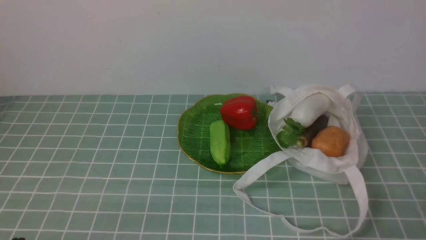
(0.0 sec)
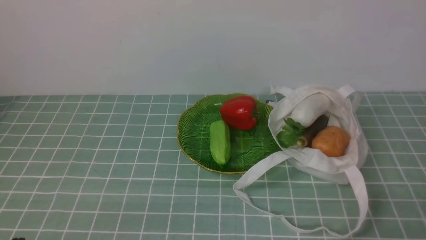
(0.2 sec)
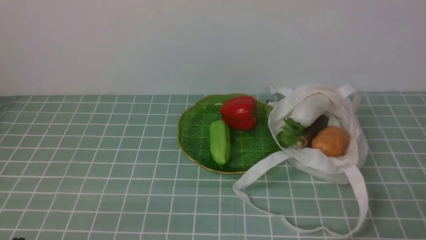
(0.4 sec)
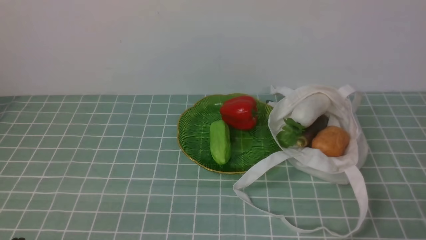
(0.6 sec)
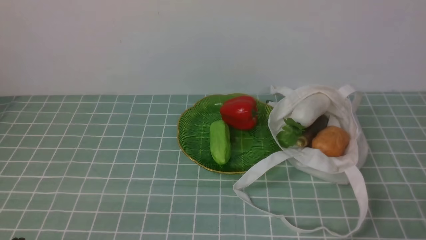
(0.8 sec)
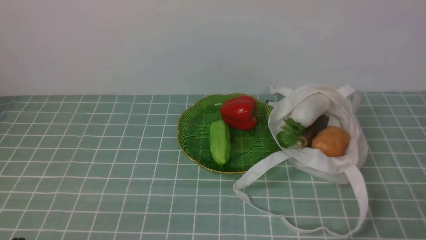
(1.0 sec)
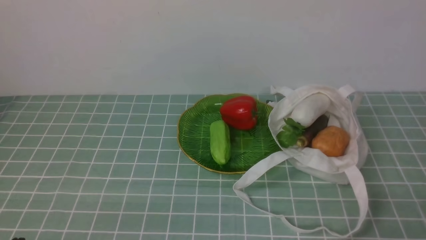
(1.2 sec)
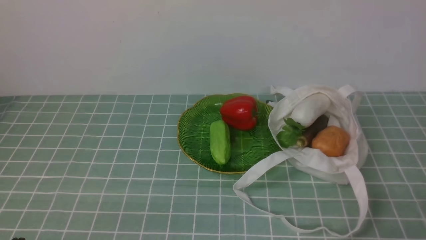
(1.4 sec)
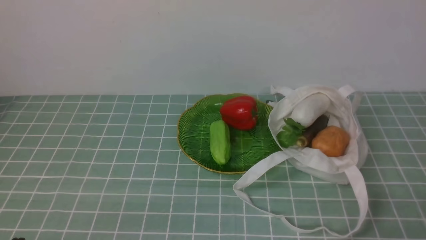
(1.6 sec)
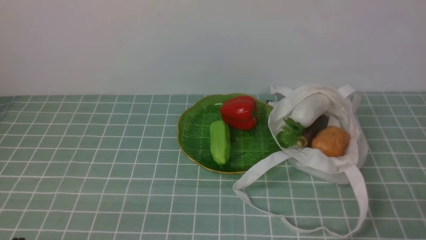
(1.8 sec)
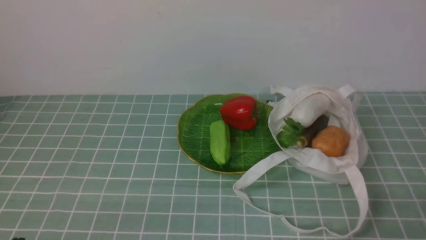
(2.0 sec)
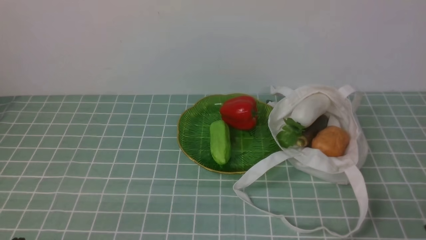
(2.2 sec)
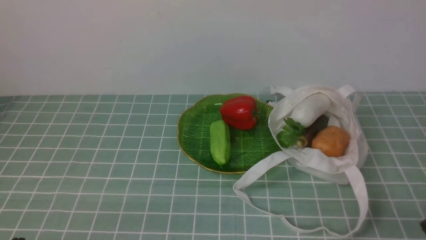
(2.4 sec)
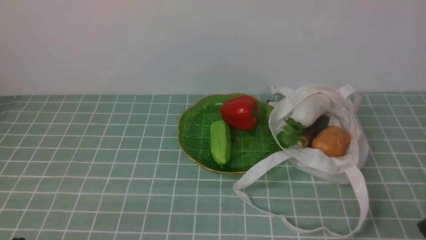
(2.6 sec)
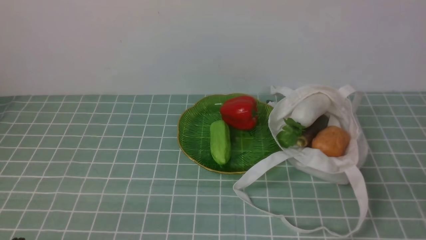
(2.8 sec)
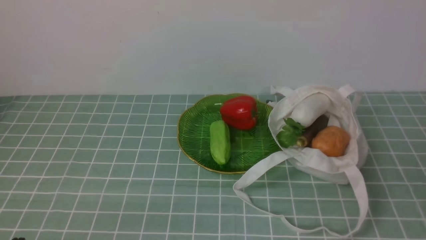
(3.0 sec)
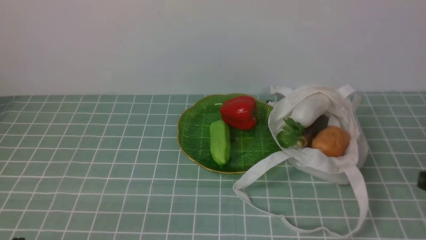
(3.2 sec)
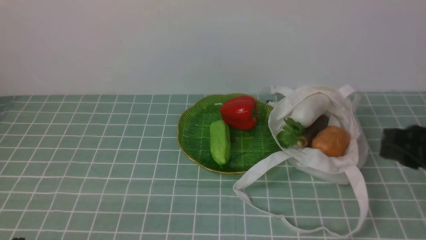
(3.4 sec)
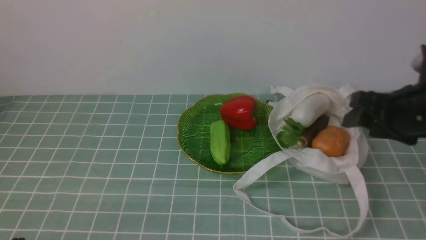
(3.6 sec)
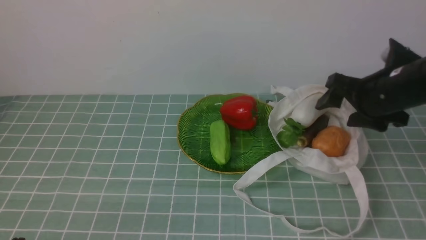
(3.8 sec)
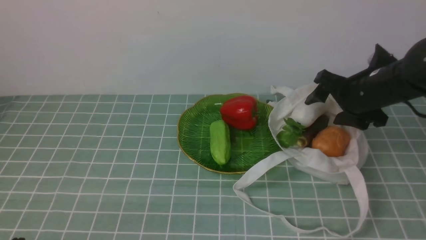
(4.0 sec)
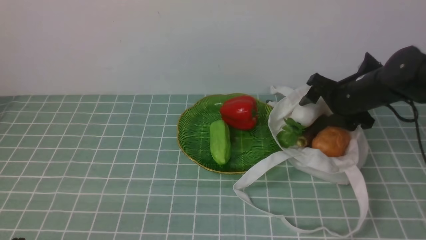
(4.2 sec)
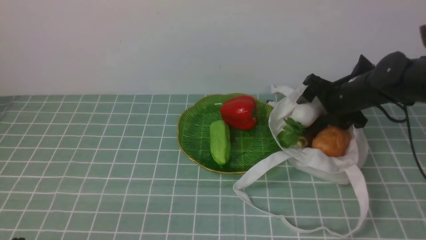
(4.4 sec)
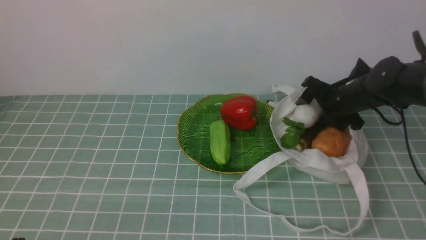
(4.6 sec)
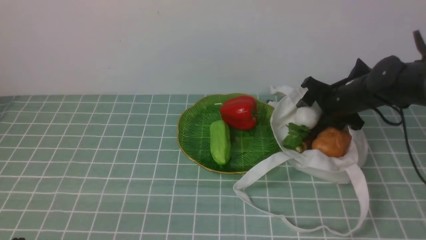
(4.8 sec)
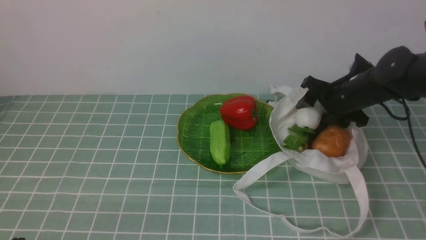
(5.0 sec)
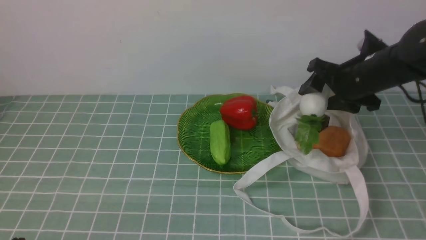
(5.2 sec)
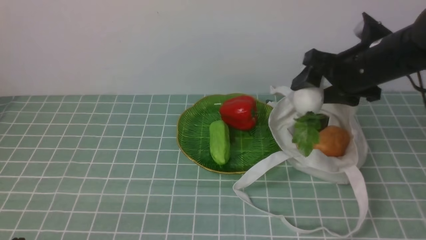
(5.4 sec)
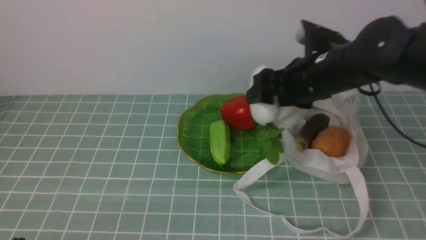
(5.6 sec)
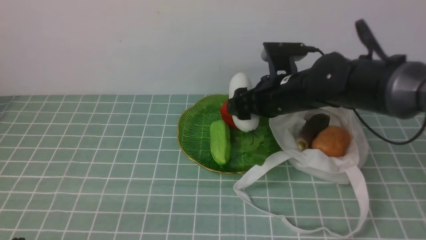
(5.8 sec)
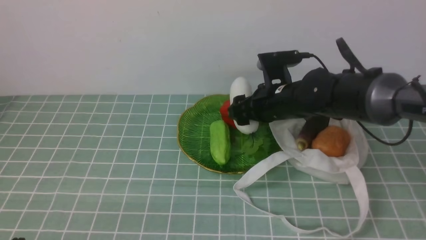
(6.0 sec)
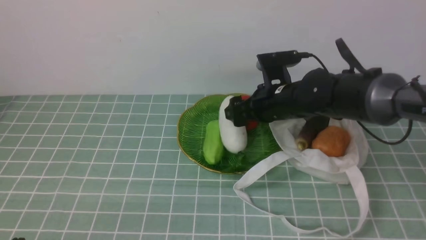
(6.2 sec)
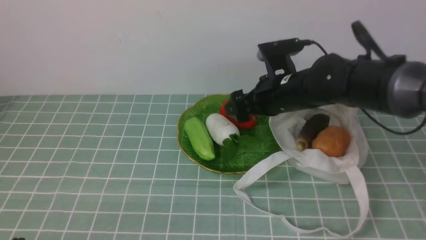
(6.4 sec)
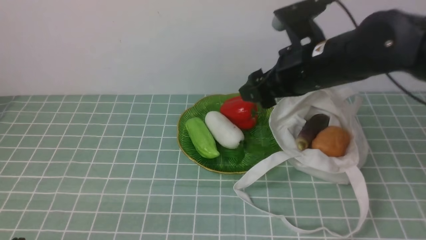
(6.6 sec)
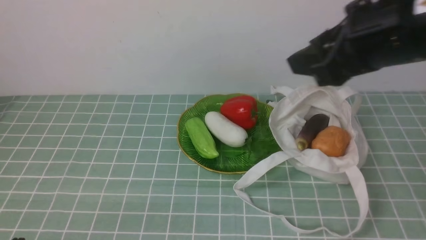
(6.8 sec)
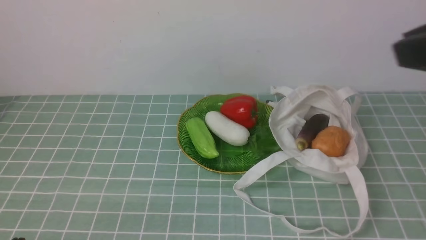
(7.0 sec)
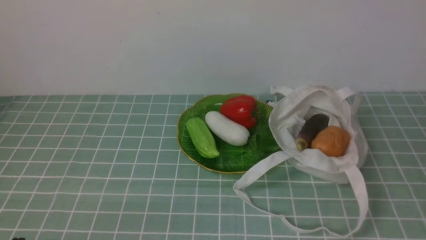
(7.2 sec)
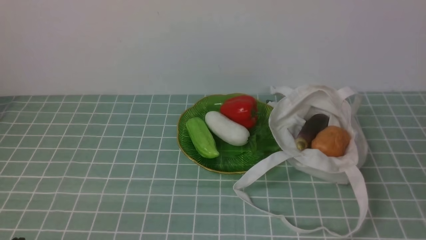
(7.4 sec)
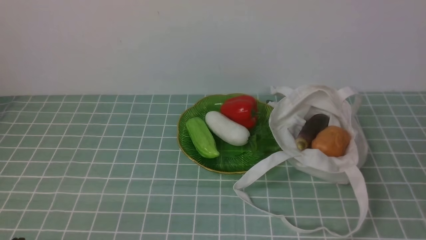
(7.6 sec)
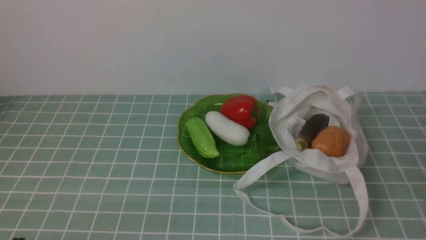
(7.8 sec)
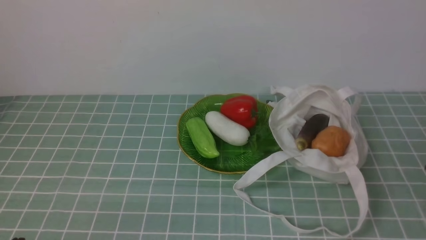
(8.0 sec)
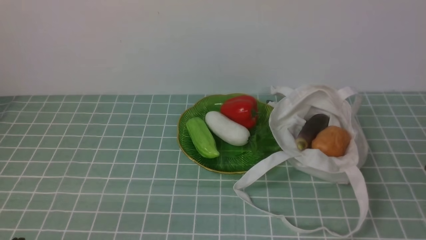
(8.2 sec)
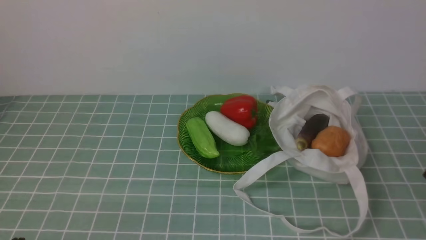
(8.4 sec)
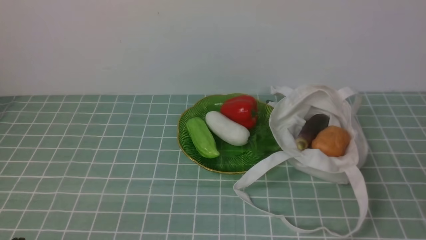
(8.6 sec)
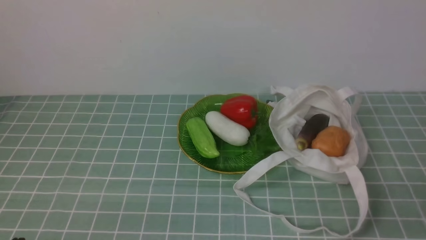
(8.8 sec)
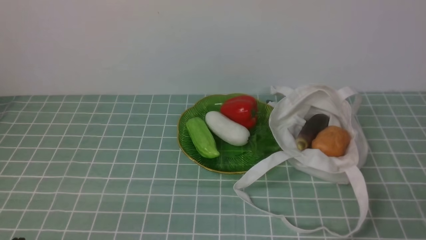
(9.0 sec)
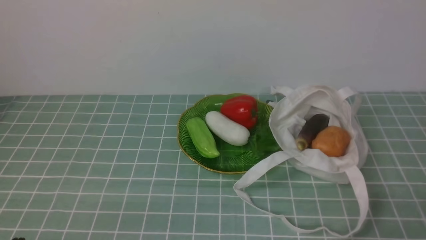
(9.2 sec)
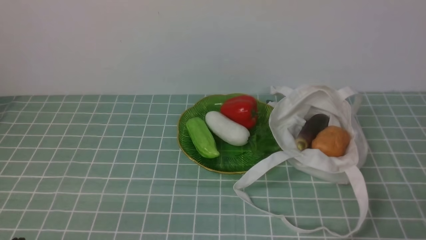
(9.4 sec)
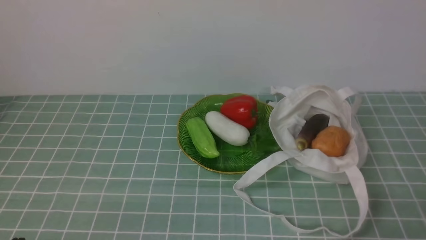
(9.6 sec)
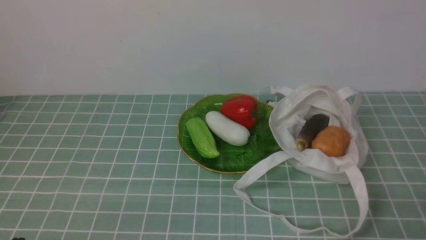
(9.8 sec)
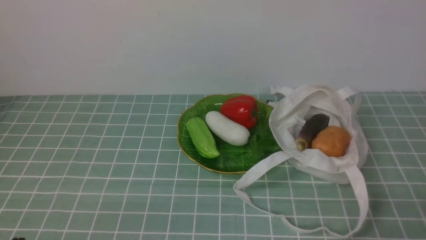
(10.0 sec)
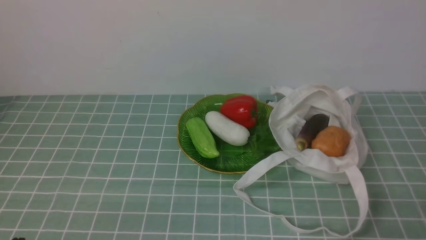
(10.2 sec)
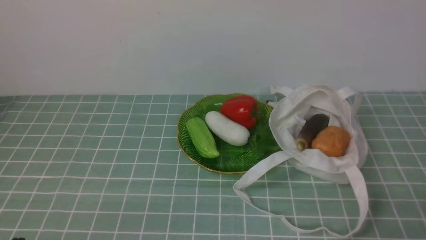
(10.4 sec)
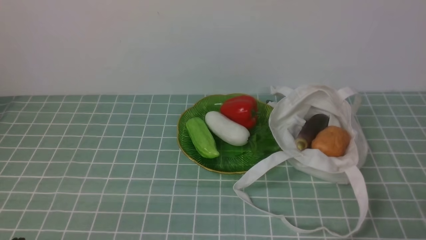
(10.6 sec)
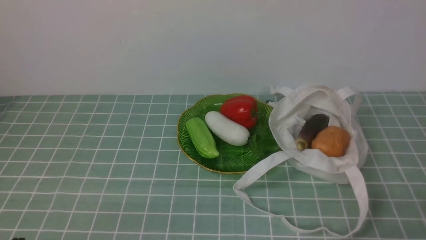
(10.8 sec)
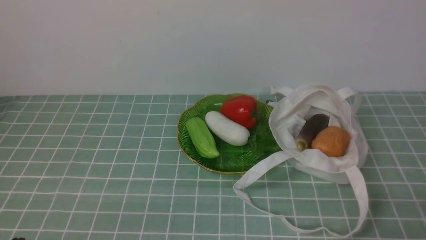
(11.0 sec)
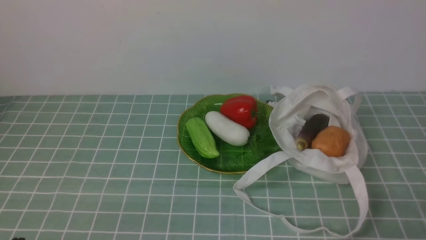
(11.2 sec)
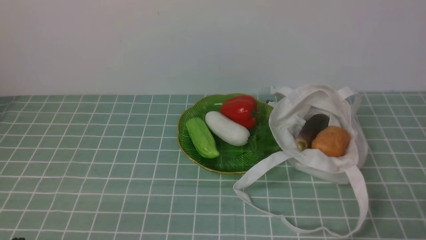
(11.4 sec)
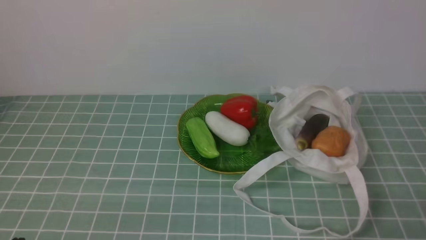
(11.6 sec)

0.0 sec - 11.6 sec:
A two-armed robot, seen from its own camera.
Task of the whole recording: take vegetables from cloth bag on blue coffee tablecloth place on plate.
Step, 0.0 sec - 4.8 sec: Grasp the radish with right gripper.
Step, 5.0 sec - 6.4 sec: Place the radish on the plate with right gripper.
0.0 sec - 1.4 sec: Both grippers stay put.
2.8 sec - 4.4 sec: The right gripper travels forward by approximately 35 cm, and opens up.
4.4 sec - 5.8 sec: The right gripper travels to the left by about 10 cm.
5.8 sec - 7.2 sec: The right gripper travels backward, upward and to the right by approximately 40 cm, and closes.
10.2 sec - 11.6 sec: Neither gripper changes place.
